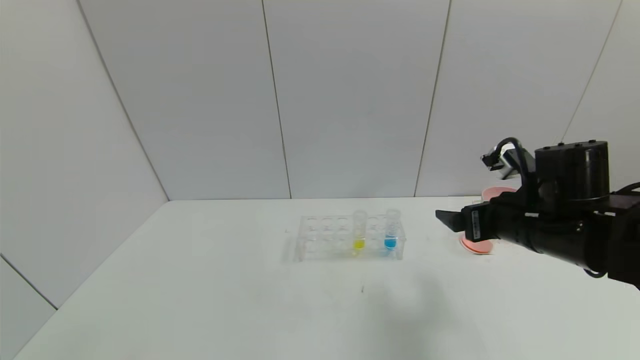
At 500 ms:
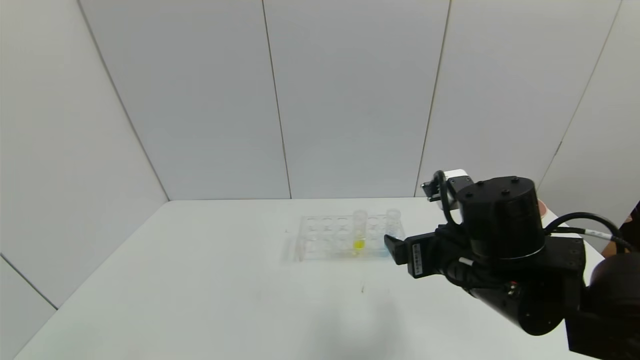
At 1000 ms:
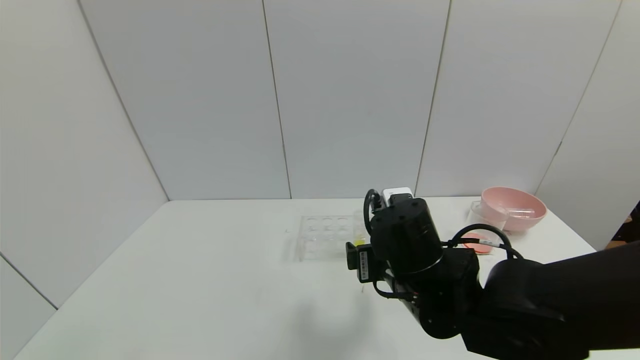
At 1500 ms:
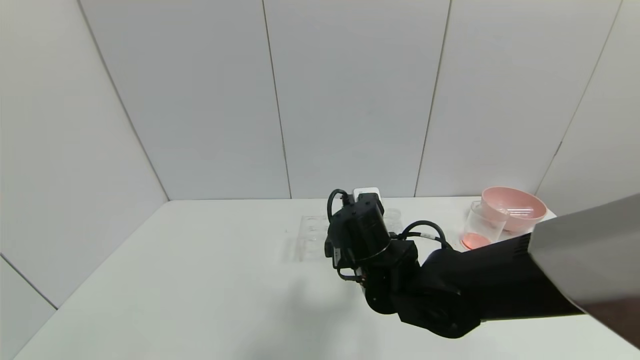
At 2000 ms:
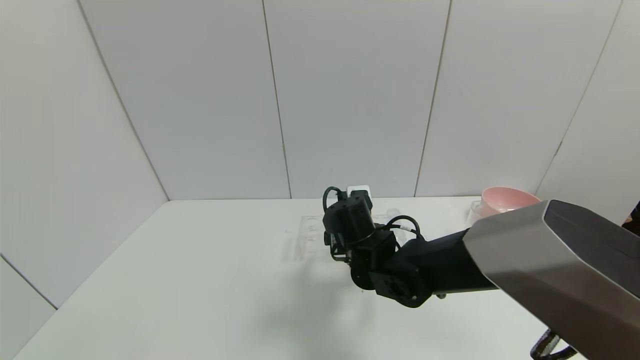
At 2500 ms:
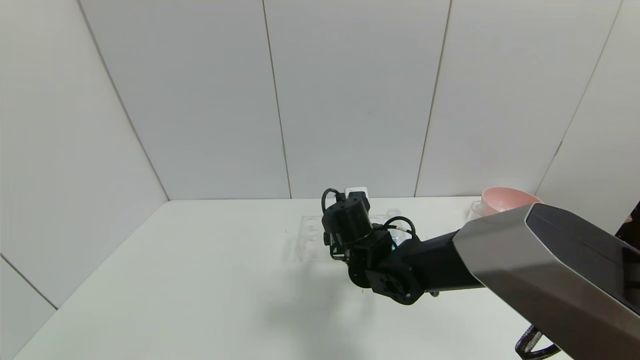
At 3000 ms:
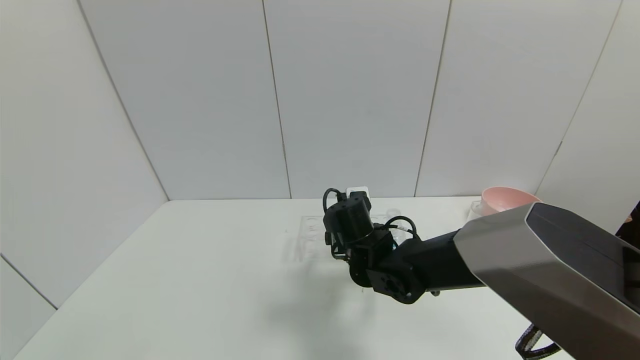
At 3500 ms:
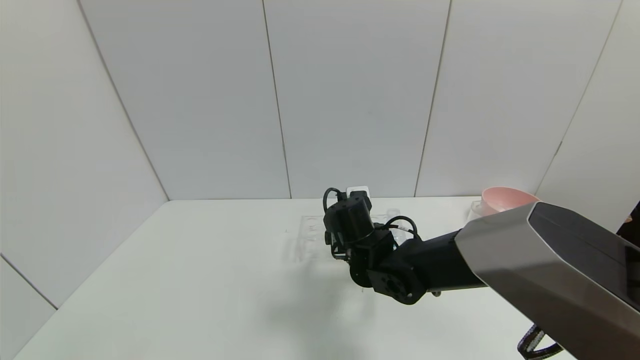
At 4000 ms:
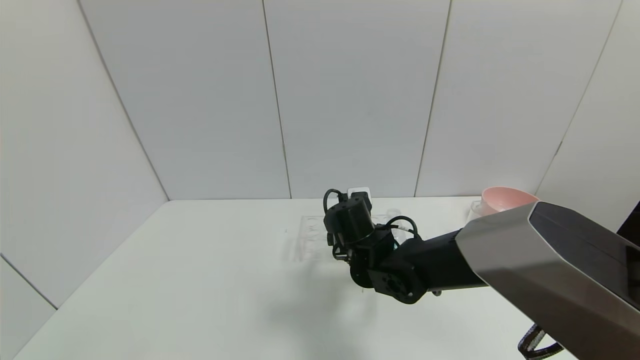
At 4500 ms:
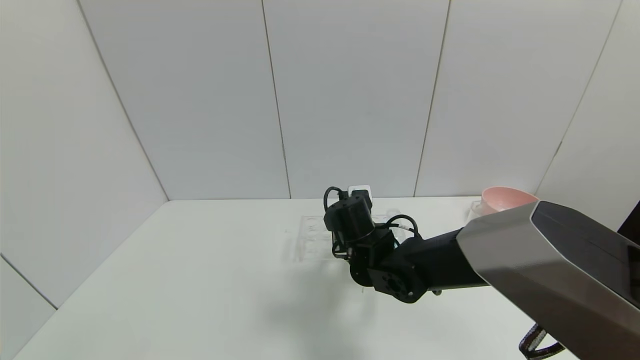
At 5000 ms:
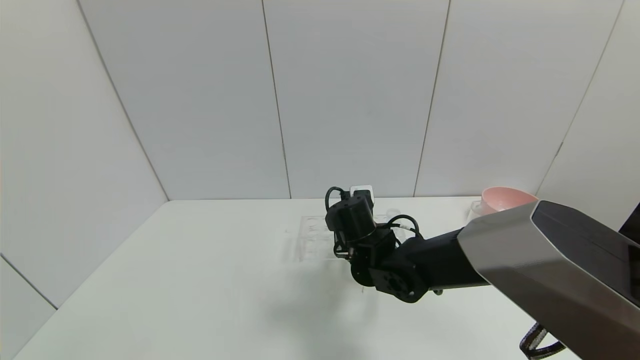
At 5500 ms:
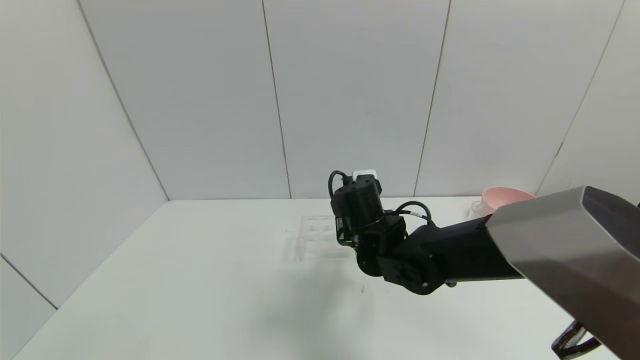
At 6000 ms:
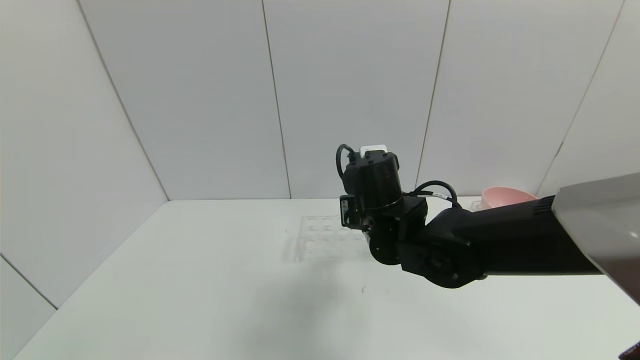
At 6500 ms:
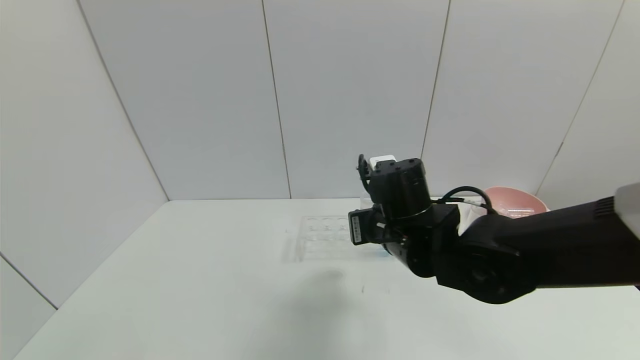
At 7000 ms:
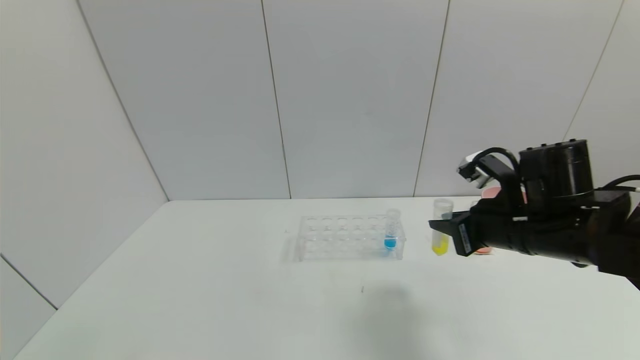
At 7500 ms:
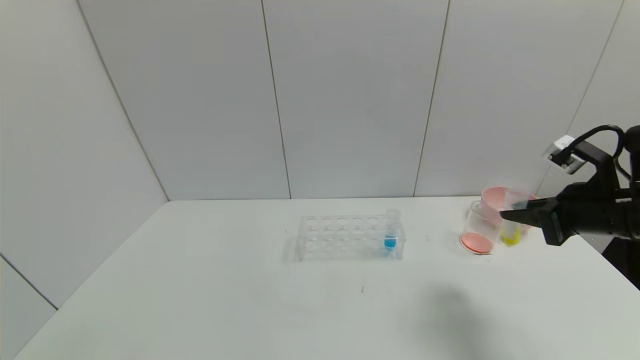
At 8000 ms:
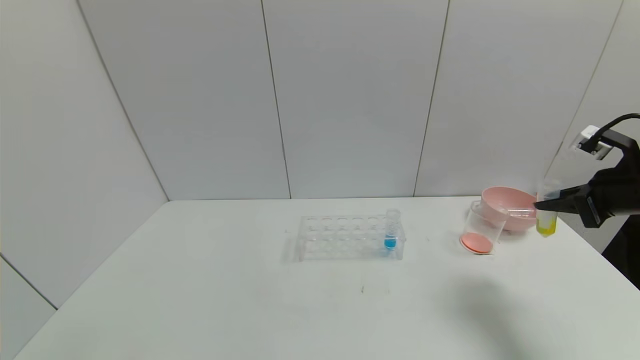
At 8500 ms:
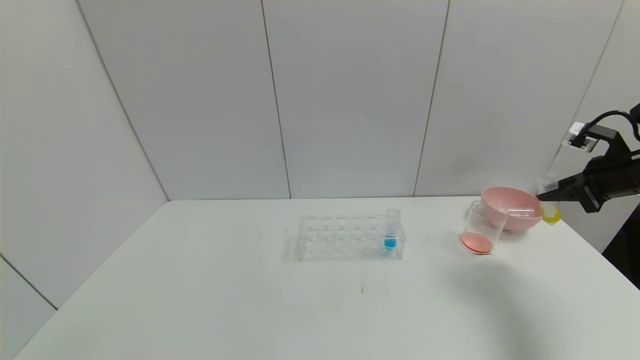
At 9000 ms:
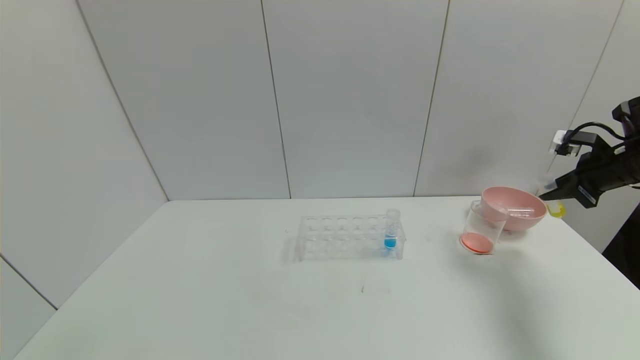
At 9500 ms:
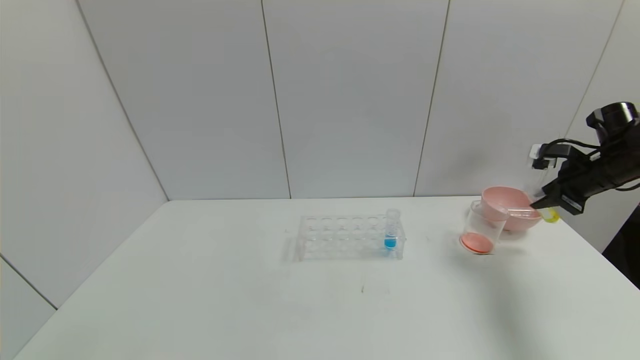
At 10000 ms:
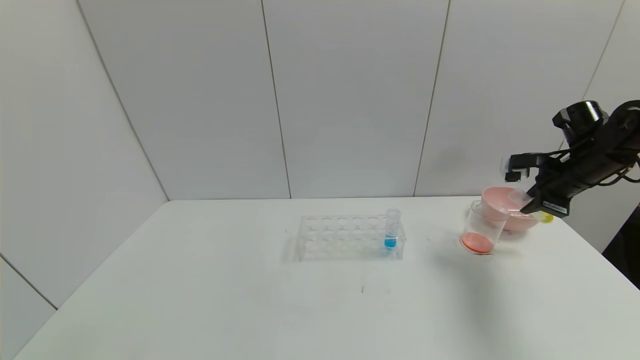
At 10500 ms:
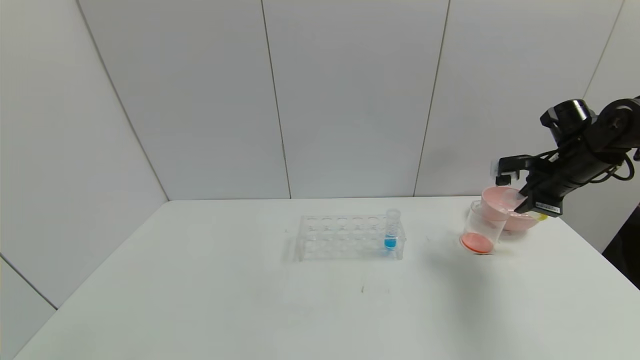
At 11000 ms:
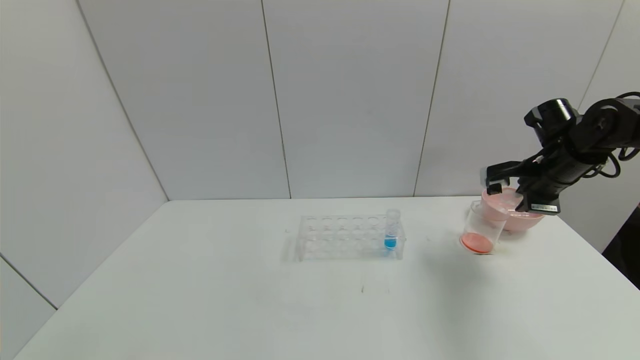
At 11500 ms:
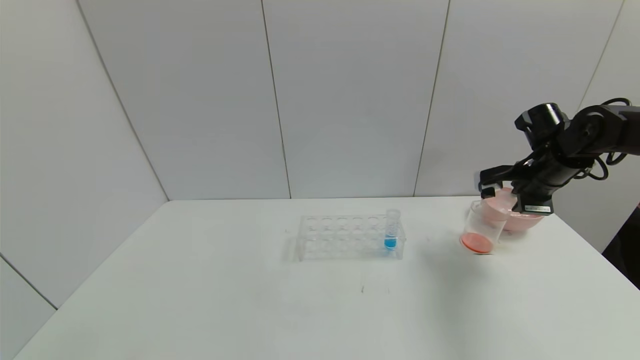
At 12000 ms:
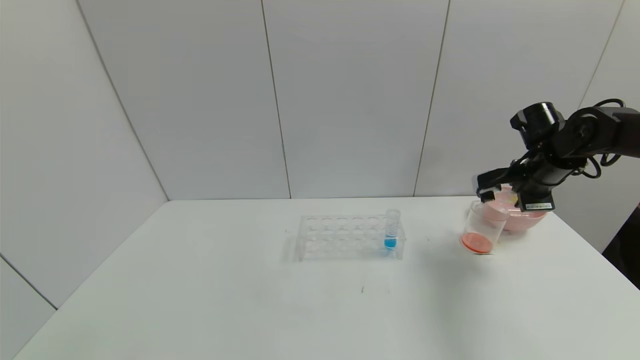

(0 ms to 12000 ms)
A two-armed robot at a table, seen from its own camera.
Task of the whole recording: pick up the test tube with yellow pigment and the test tube with red pigment by grippers and pour them into the beaker.
Step, 0 ms - 5000 ms: Grasp the yellow reagent with the right gripper.
0 ms - 2000 ms: The right gripper moves to the left and downward, roughly 20 cm.
2000 ms - 4000 ms: The two grippers keep their place.
4000 ms - 6000 ms: The right gripper is displaced upward by roughly 10 cm, and closes its fingers.
6000 ms - 8000 ms: The right gripper moves to the right, roughly 35 cm.
8000 ms - 10000 ms: The right gripper moves forward, roughly 10 cm.
10000 ms - 12000 ms: The right gripper travels to the left by roughly 5 cm.

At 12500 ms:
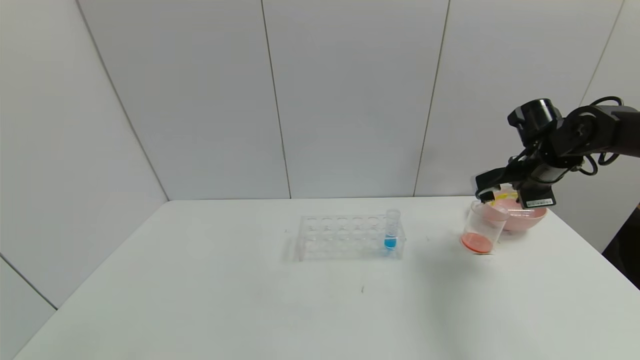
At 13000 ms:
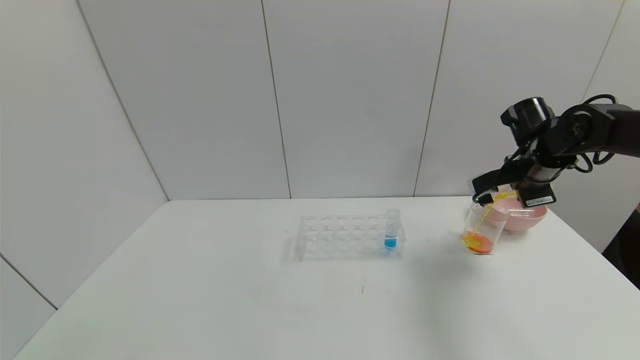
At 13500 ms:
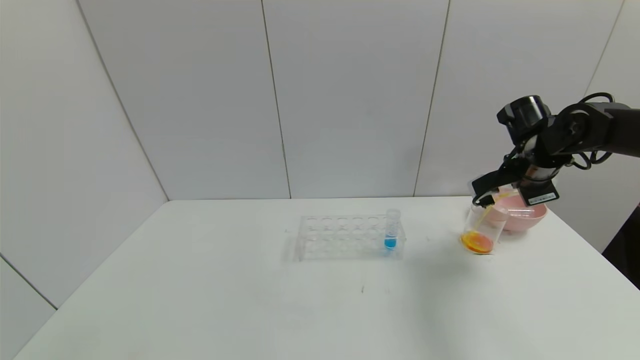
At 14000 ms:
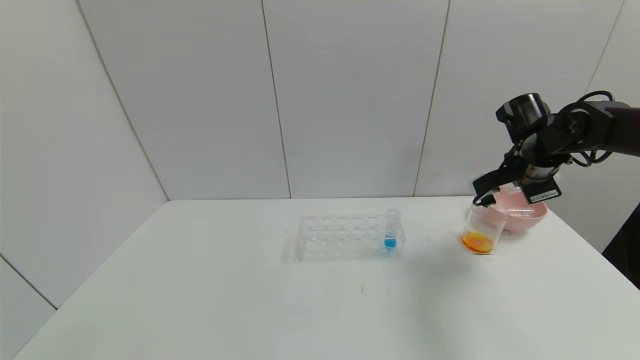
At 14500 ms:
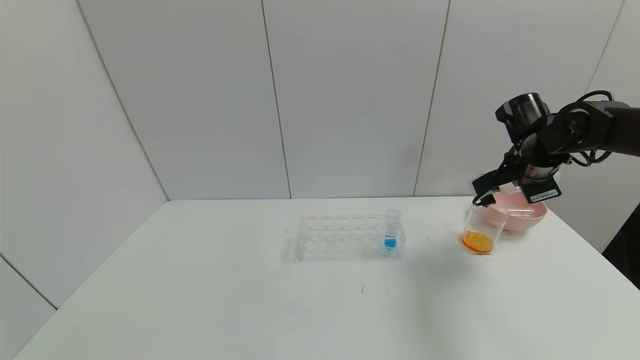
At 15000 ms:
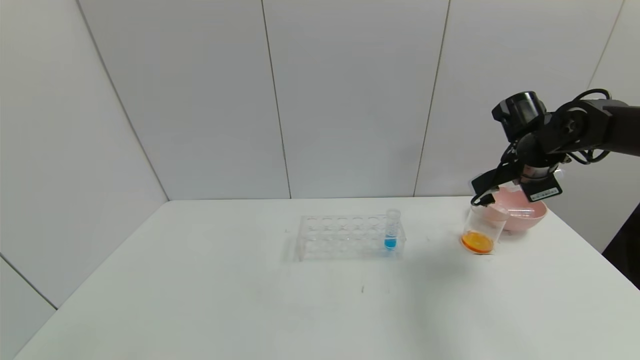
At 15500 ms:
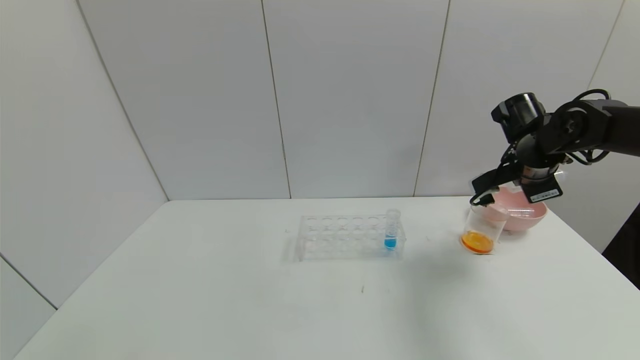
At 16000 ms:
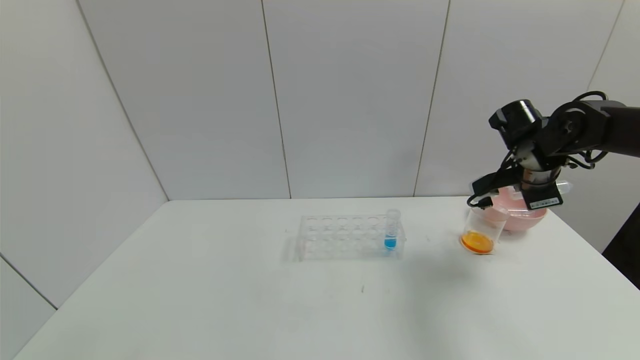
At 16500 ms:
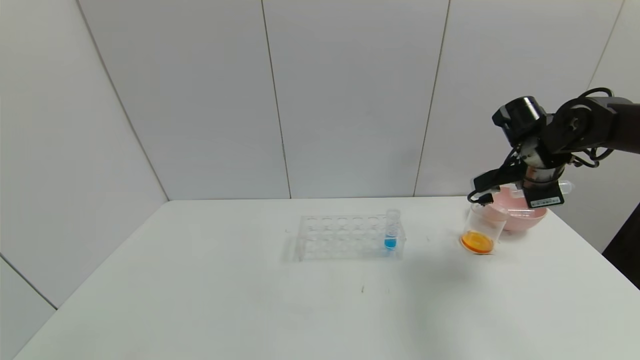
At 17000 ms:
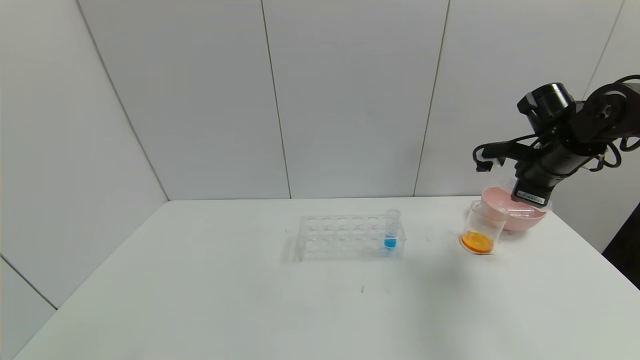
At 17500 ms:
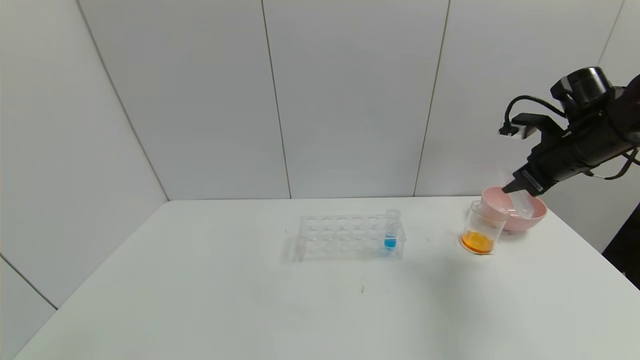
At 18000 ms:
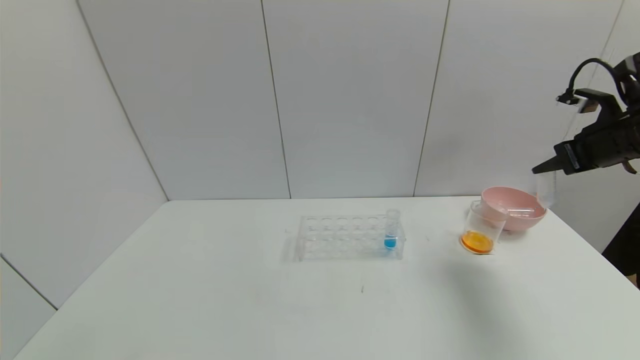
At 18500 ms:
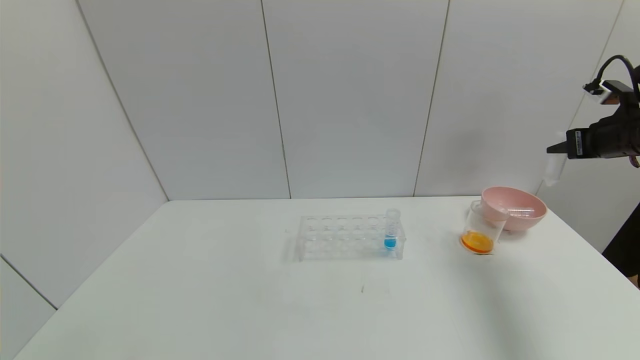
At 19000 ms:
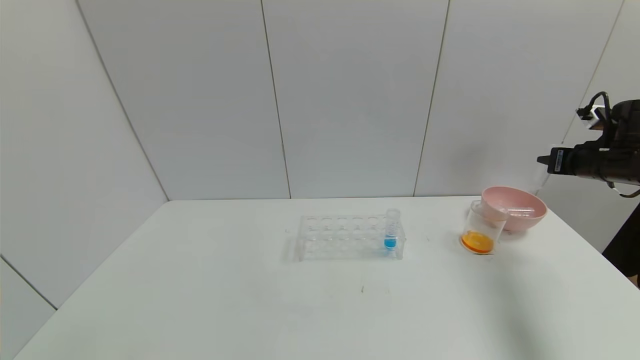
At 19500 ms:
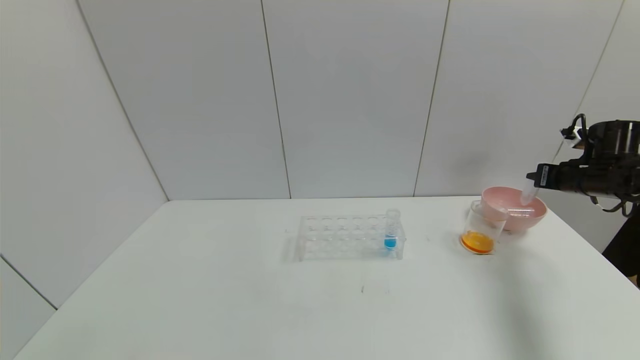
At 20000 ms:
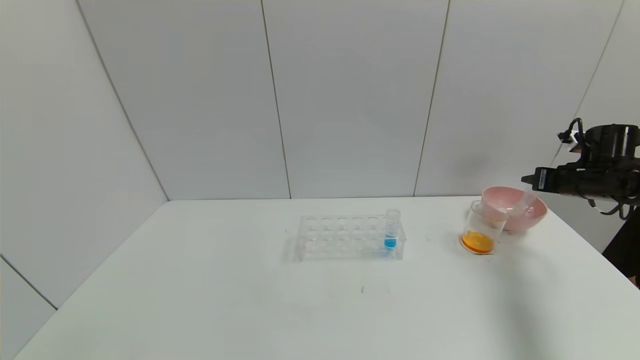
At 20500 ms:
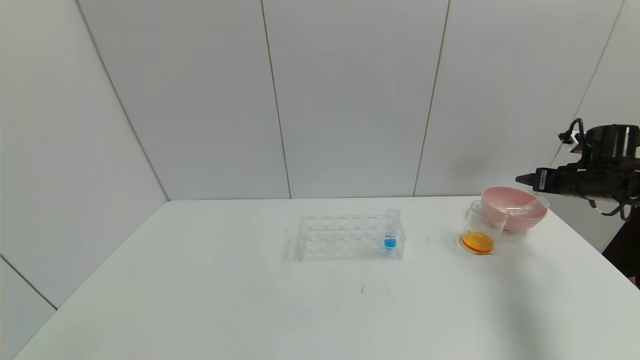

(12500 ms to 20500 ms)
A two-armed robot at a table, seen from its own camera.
Task of the whole recording: pick up the test tube with yellow pigment and the test tube with red pigment by grippers and pour them into the beaker.
Step, 14000 ms - 20000 ms: Place the test tube into the bowl with the right gripper.
12500 ms - 16500 ms: The grippers stay close to where they were, moving slightly.
16500 ms - 18500 ms: The right gripper moves to the right, approximately 15 cm.
18500 ms - 20500 ms: The right gripper moves downward, about 10 cm, and opens its fingers.
